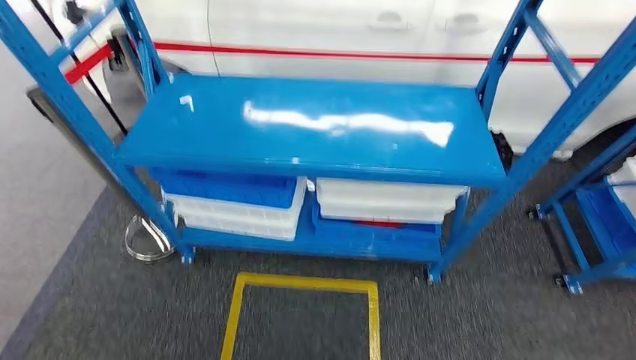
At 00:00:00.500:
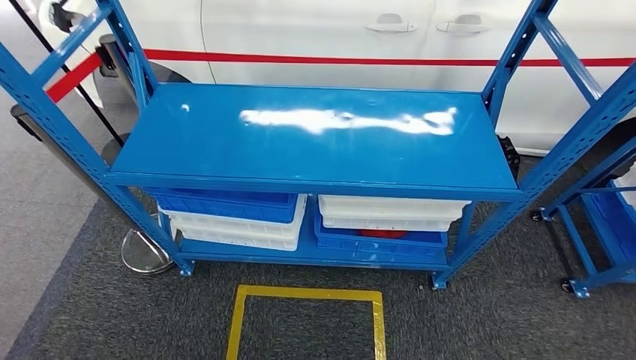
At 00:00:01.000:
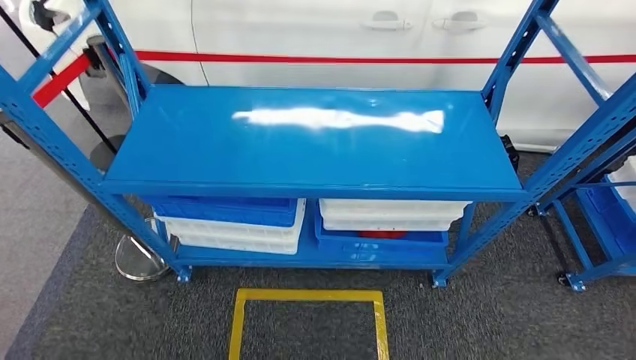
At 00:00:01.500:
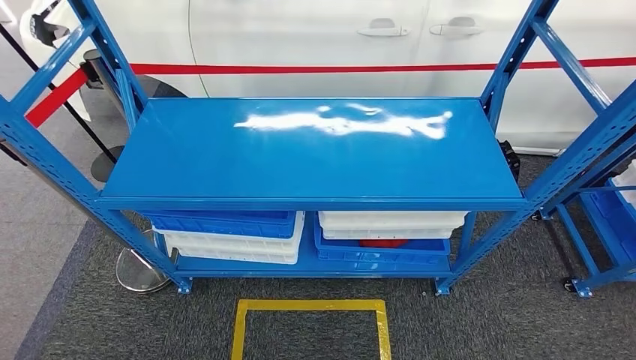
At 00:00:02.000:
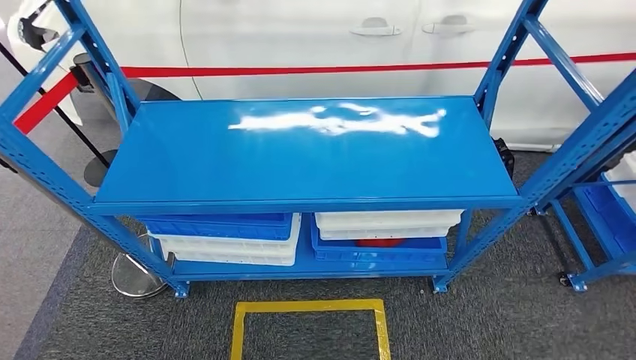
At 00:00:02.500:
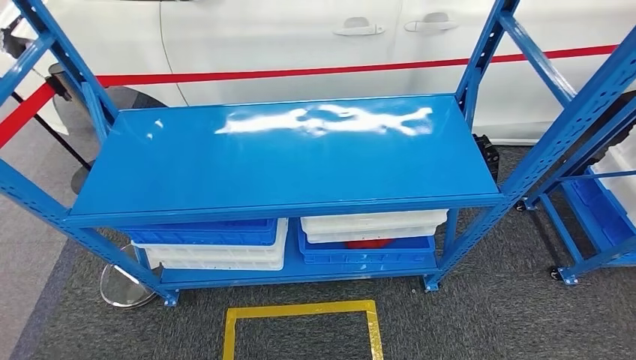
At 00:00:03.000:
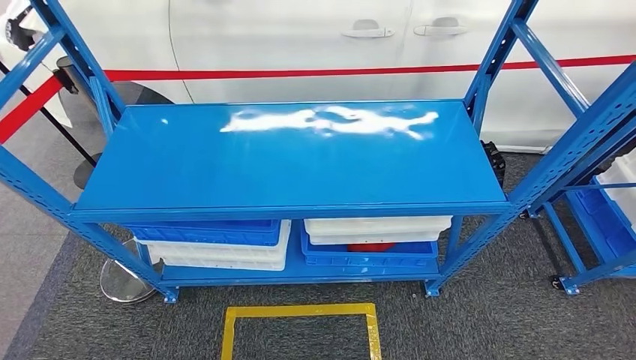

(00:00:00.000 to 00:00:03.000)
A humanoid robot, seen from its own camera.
Step, 00:00:00.000 - 00:00:03.000: Move to the initial position of the shelf.
